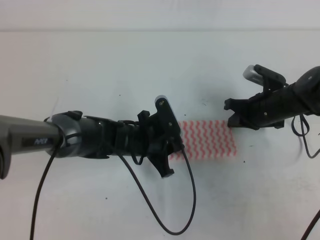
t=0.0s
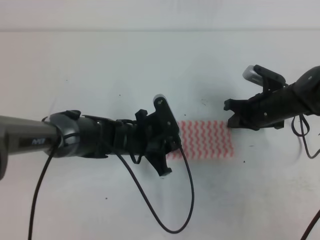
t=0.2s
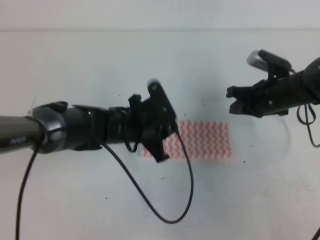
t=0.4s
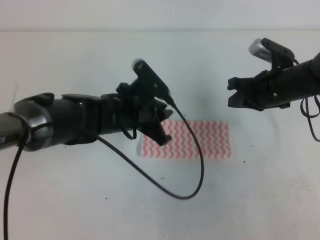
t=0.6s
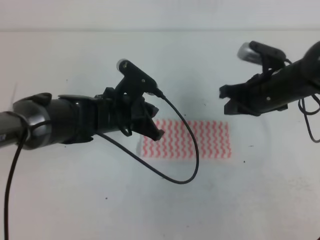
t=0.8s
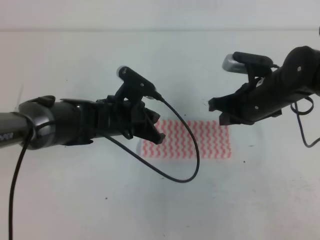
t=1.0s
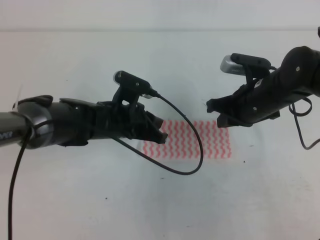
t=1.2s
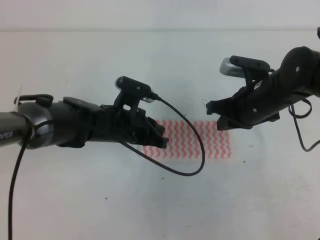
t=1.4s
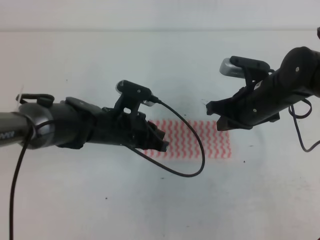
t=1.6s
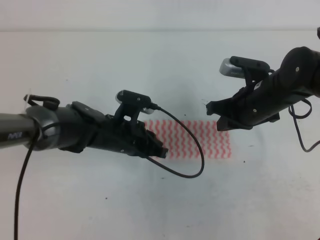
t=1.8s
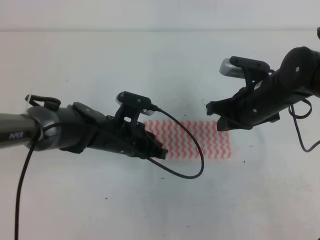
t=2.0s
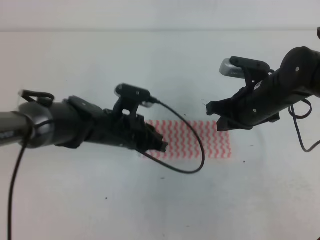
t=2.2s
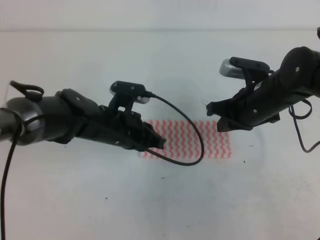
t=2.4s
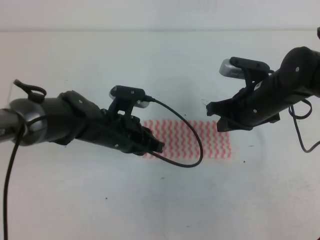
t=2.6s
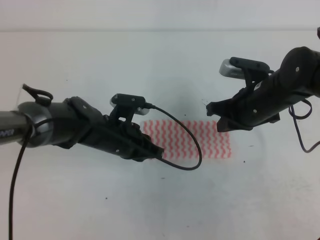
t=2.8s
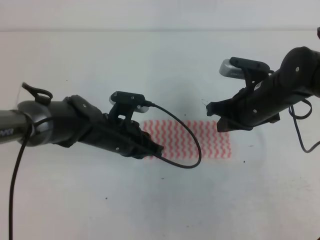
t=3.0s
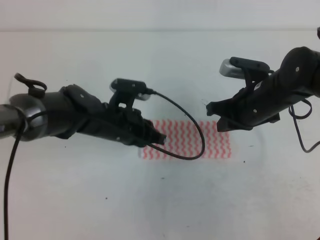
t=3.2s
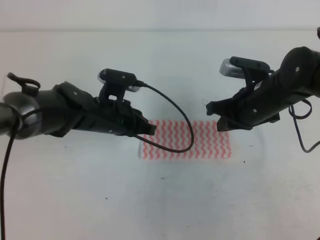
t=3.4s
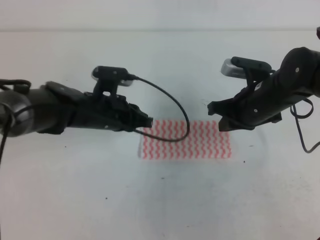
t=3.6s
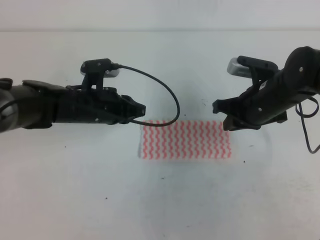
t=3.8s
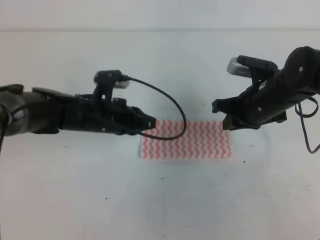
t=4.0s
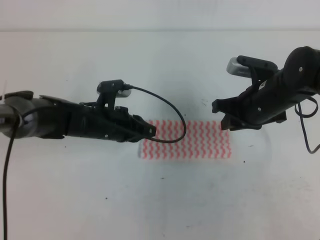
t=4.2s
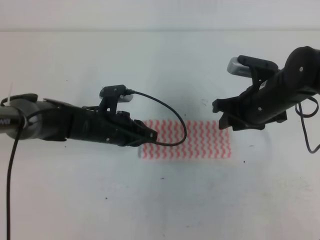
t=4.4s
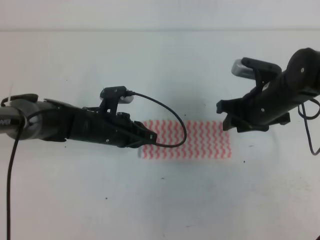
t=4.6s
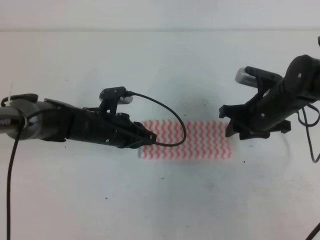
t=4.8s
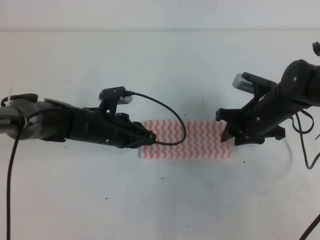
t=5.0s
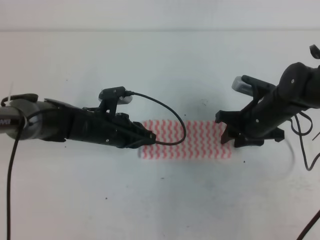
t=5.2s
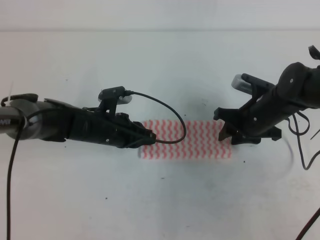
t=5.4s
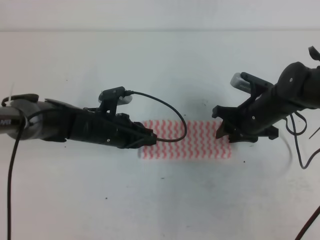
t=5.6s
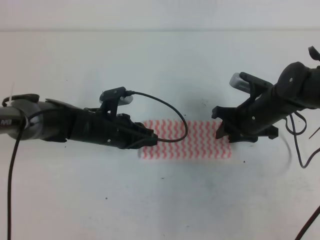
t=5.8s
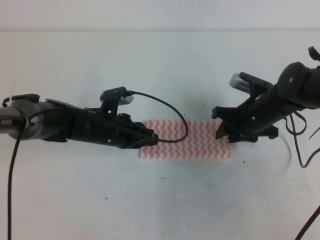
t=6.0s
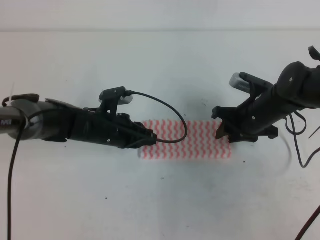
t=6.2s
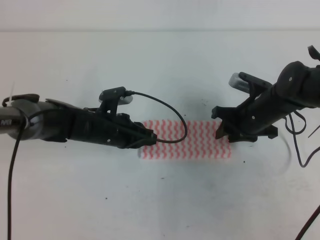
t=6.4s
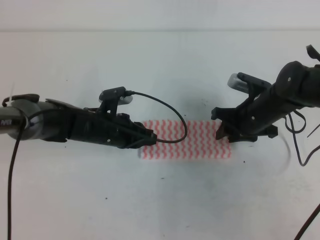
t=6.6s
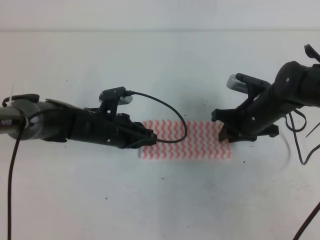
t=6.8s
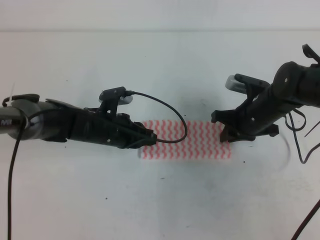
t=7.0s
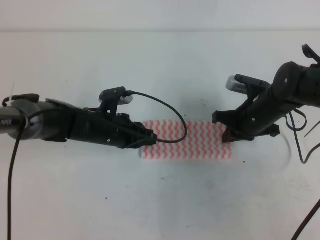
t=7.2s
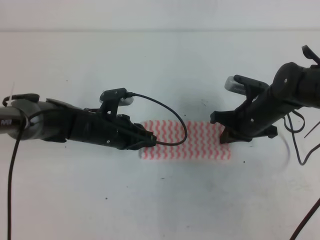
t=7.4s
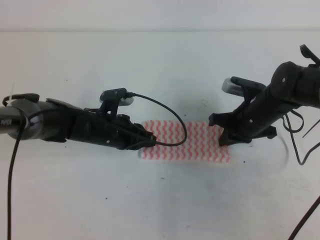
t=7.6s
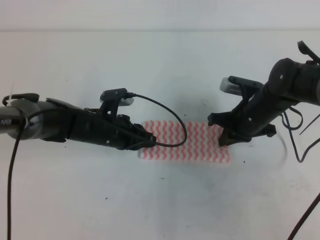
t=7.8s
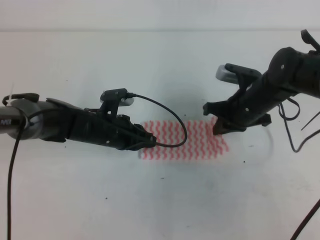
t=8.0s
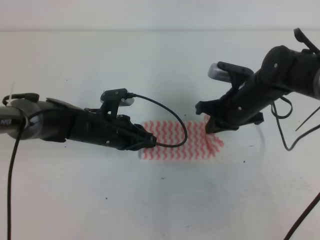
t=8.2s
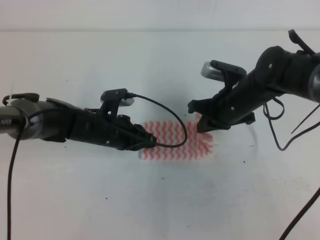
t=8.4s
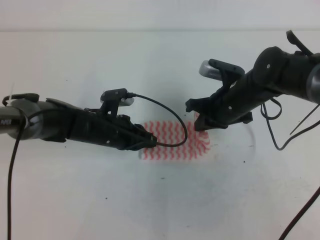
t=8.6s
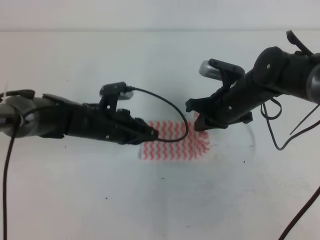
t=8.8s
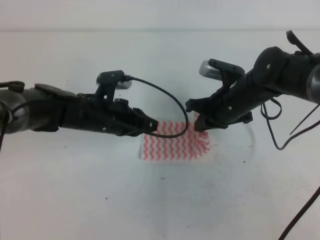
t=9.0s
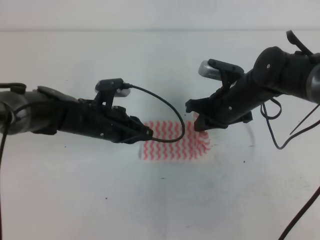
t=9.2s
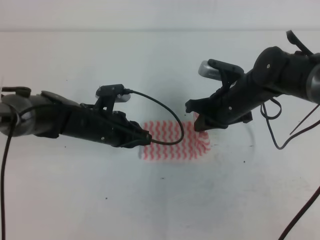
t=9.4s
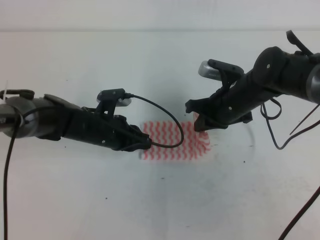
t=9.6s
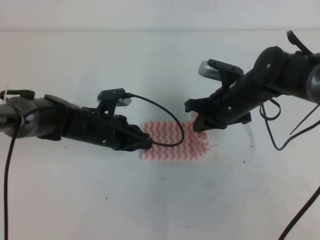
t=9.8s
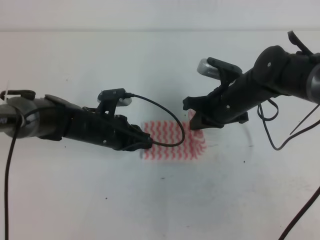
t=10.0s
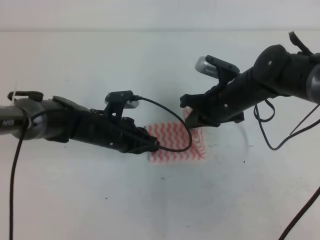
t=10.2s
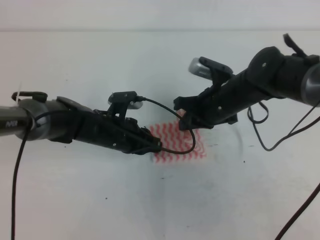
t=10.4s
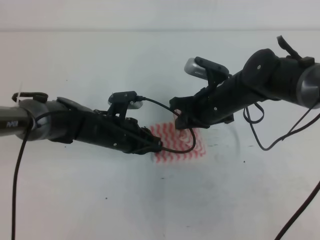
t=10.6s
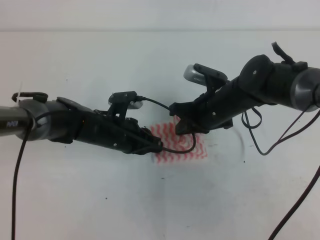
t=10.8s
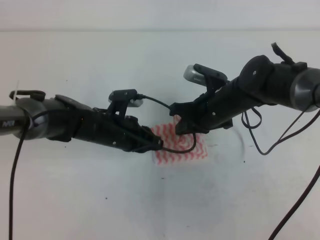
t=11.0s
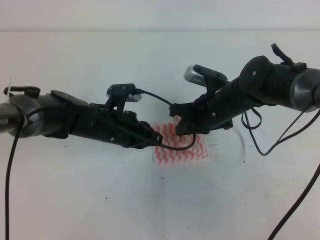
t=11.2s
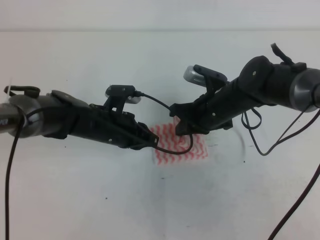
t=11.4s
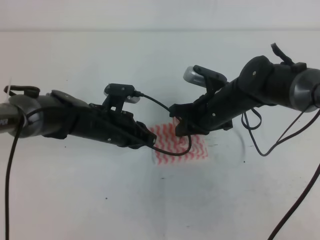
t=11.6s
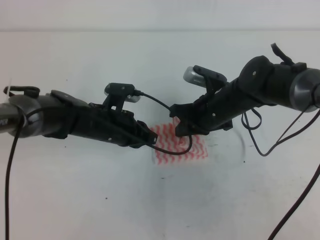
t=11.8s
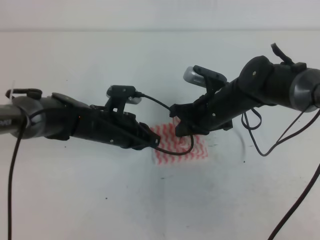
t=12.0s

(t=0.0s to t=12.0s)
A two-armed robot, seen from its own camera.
t=0.0s - t=1.6s: The right gripper shifts some 10 cm upward and backward.
t=1.6s - t=3.0s: The grippers make only small movements.
t=3.0s - t=4.4s: The right gripper opens up.
t=4.4s - t=6.0s: The right gripper goes some 5 cm downward.
t=6.0s - t=7.6s: The right gripper closes.
t=7.6s - t=9.0s: The right gripper goes roughly 5 cm upward.
t=9.0s - t=12.0s: The grippers move only a little.

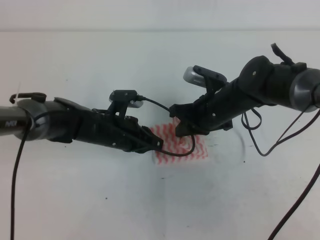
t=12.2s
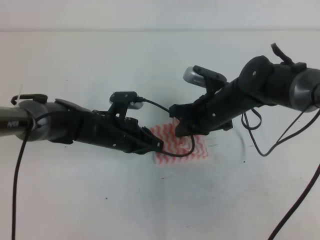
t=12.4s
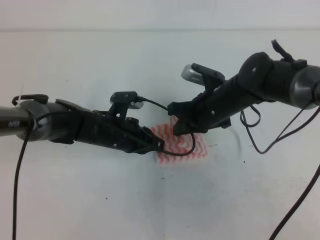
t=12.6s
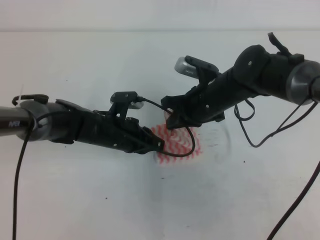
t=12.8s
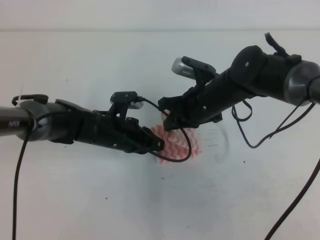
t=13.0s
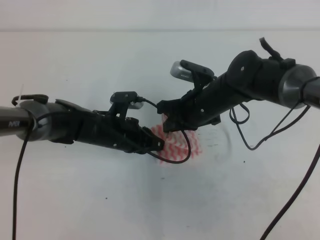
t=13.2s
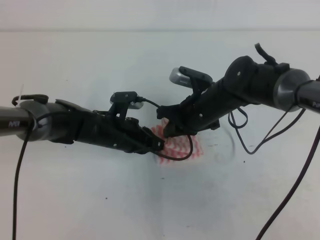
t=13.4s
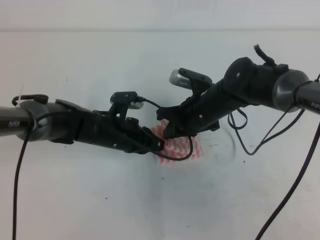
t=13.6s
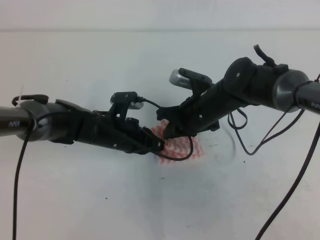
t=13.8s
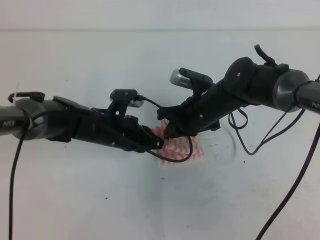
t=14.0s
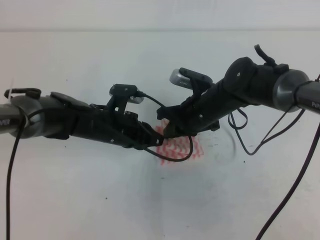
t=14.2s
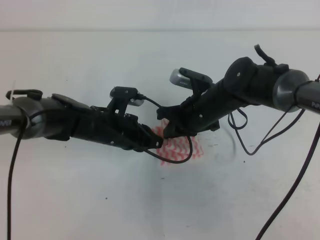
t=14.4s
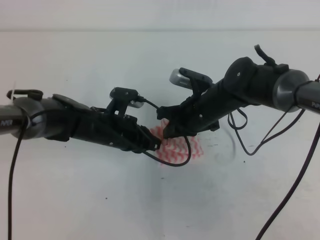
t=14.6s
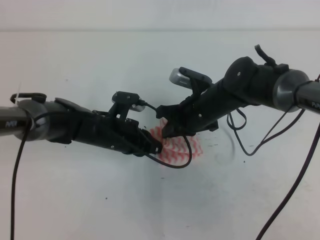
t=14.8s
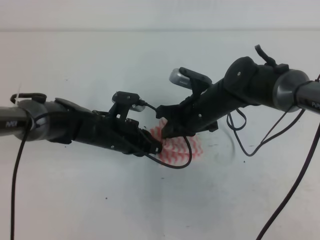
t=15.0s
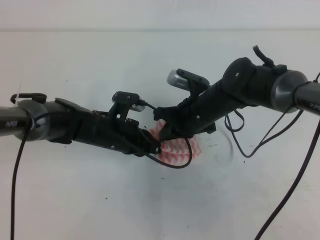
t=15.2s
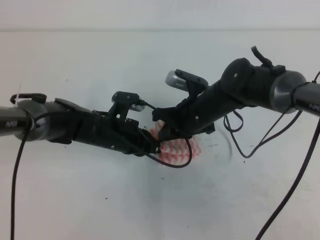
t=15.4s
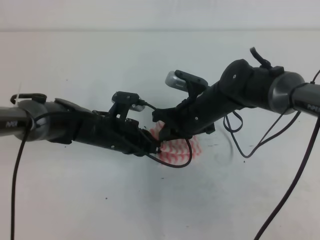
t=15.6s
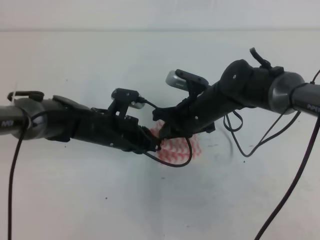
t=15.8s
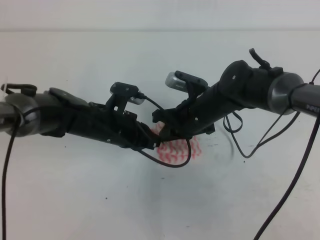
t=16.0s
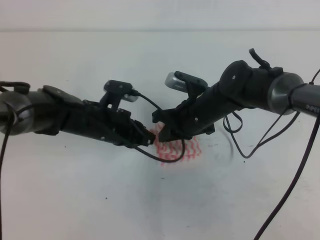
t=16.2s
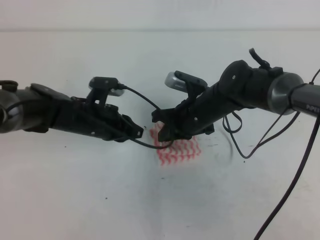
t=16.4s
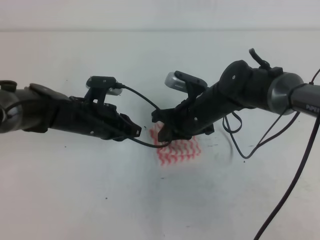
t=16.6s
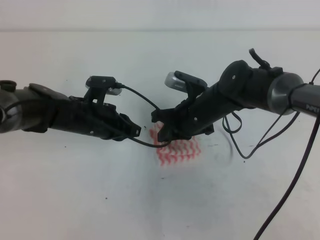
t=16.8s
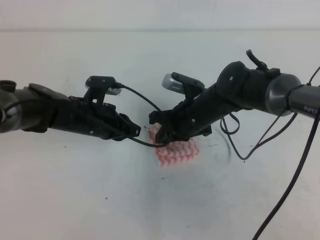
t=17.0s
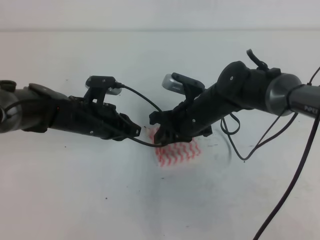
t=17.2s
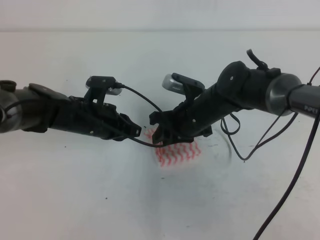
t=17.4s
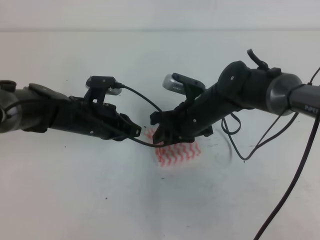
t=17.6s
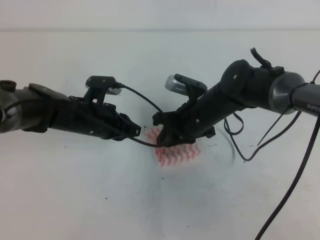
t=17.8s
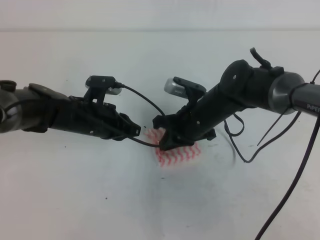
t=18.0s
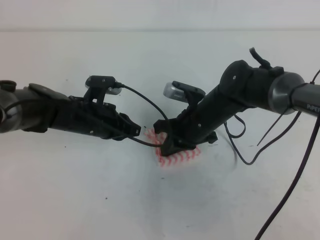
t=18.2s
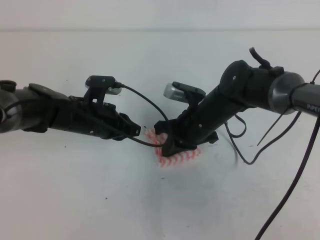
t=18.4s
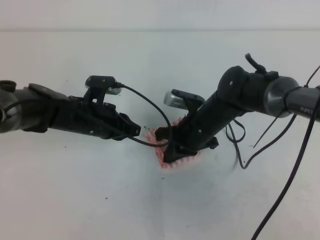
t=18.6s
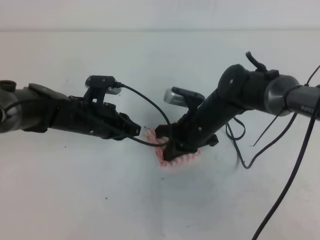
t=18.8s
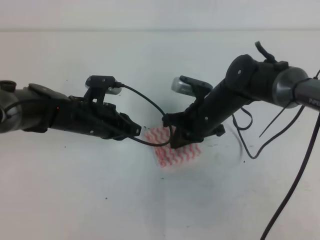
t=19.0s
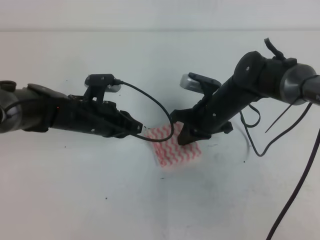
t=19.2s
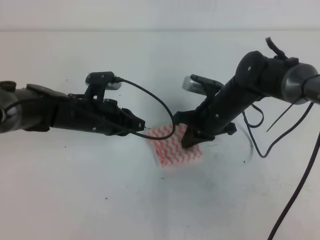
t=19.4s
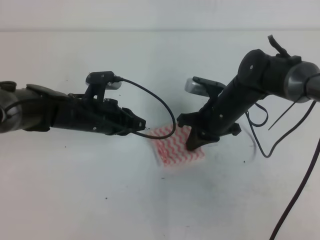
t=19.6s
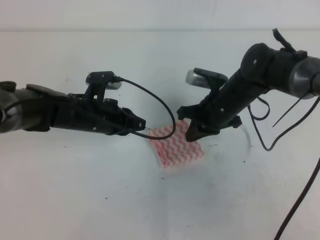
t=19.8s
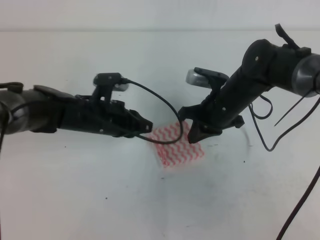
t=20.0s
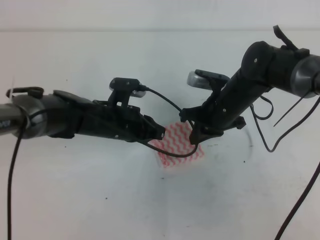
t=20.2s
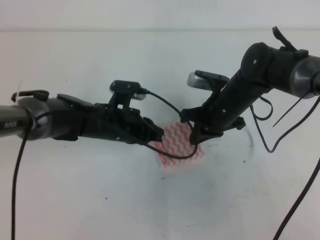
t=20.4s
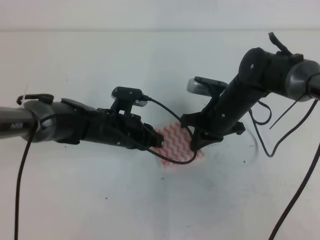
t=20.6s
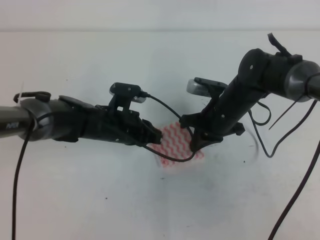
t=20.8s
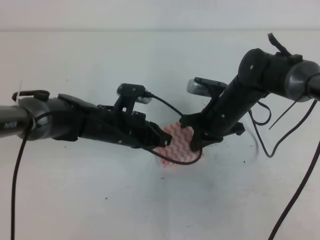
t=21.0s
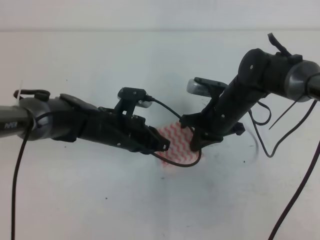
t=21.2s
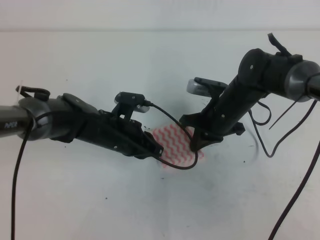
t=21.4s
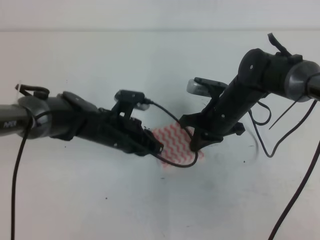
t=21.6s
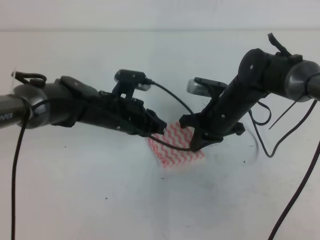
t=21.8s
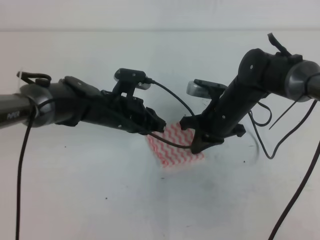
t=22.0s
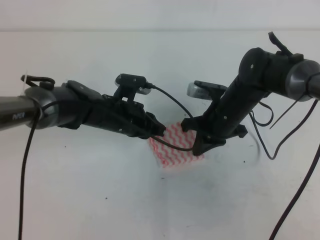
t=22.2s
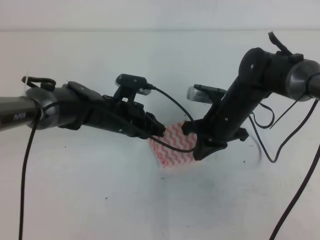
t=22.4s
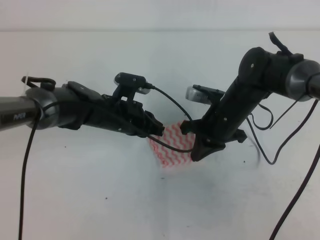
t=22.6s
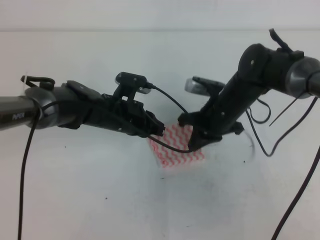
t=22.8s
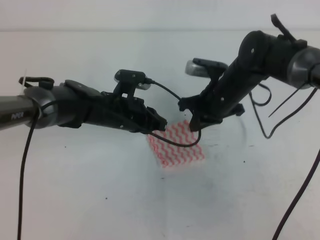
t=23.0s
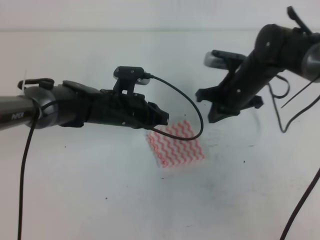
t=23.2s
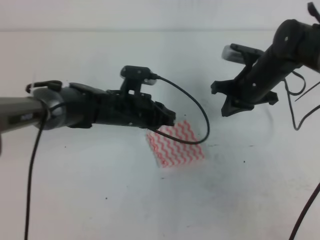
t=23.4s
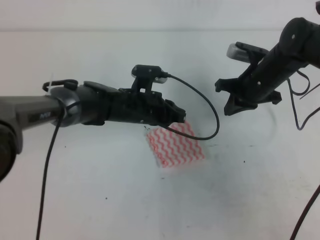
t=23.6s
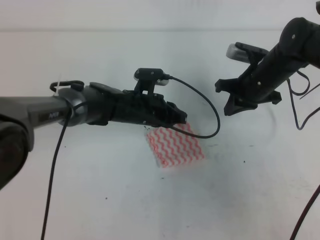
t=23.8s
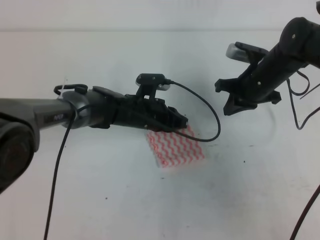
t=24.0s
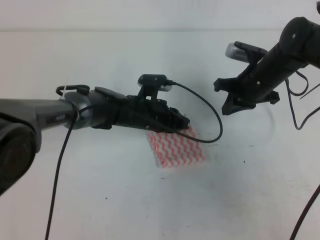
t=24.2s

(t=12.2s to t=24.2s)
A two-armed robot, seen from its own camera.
t=12.2s - t=16.6s: The grippers stay close to where they were, moving slightly.
t=16.6s - t=18.2s: The right gripper opens and closes again.
t=18.2s - t=22.6s: The grippers make only small movements.
t=22.6s - t=24.2s: The right gripper is displaced to the right and forward by some 10 cm. The left gripper moves to the right, about 5 cm.
